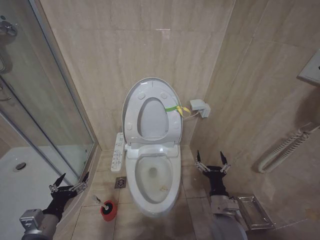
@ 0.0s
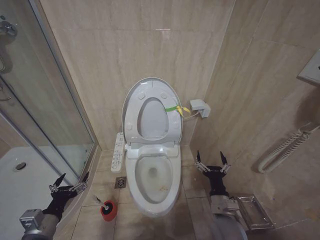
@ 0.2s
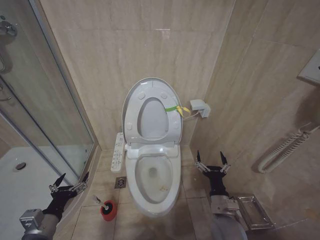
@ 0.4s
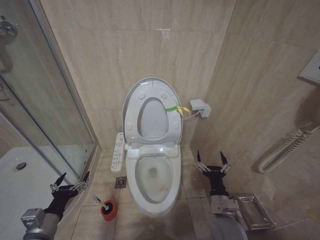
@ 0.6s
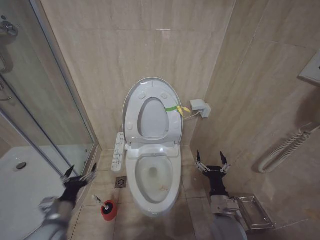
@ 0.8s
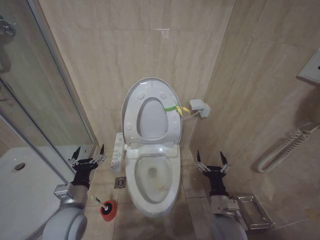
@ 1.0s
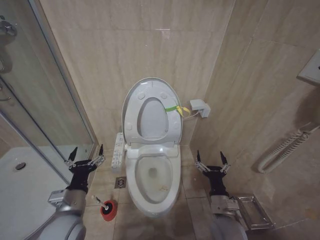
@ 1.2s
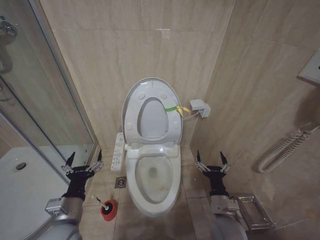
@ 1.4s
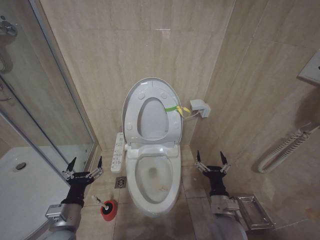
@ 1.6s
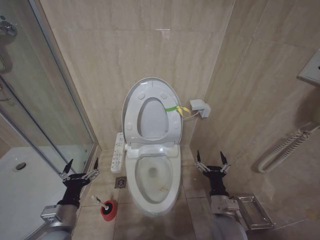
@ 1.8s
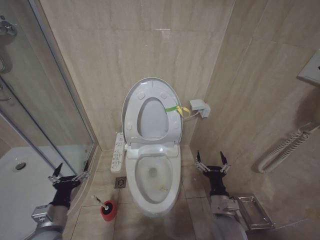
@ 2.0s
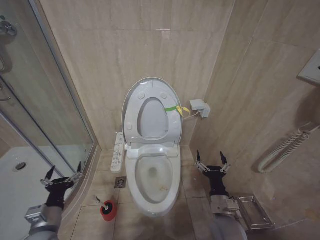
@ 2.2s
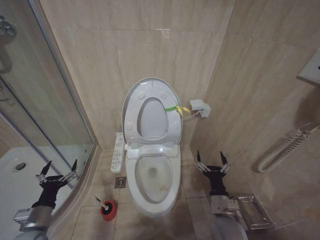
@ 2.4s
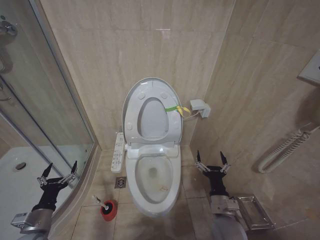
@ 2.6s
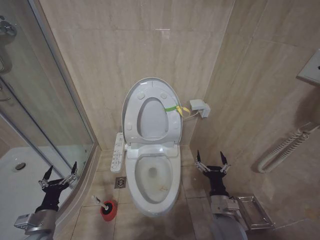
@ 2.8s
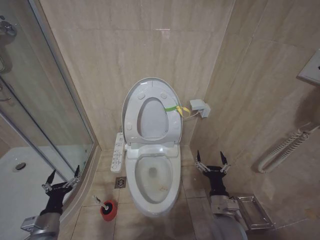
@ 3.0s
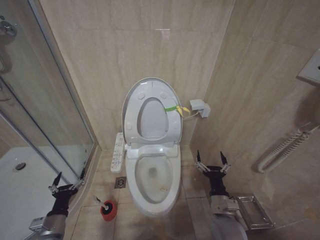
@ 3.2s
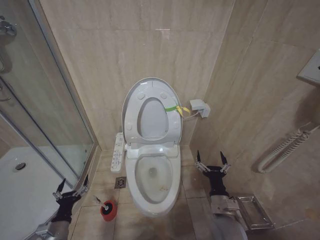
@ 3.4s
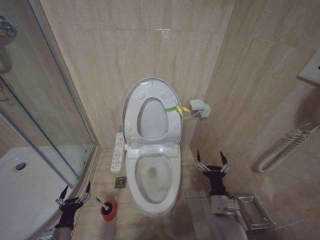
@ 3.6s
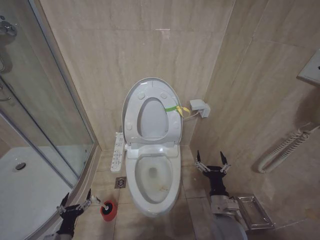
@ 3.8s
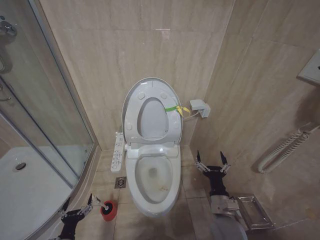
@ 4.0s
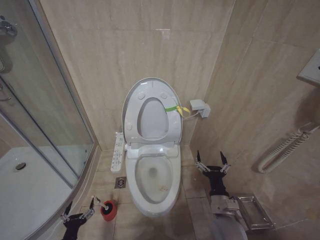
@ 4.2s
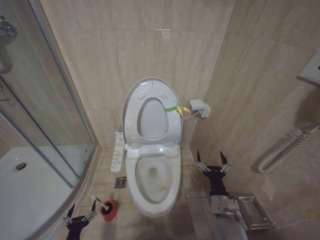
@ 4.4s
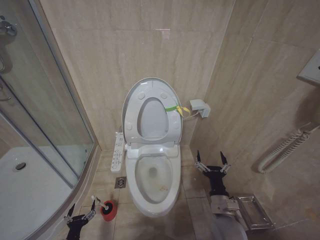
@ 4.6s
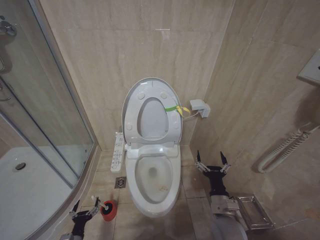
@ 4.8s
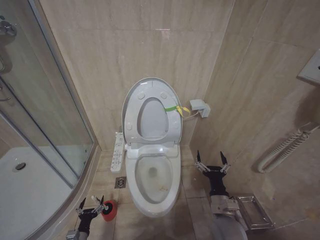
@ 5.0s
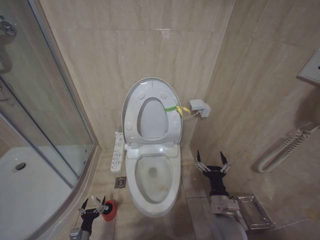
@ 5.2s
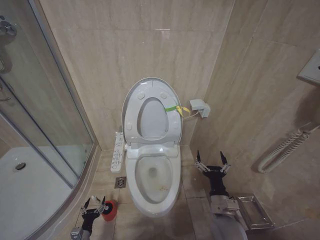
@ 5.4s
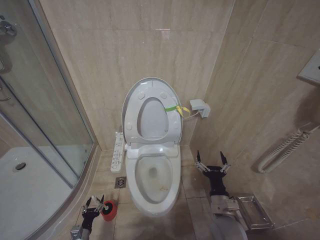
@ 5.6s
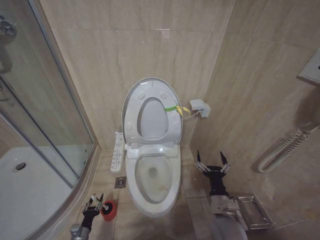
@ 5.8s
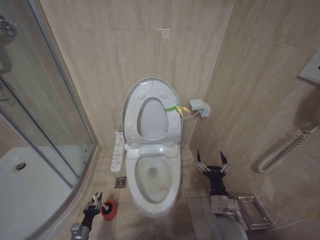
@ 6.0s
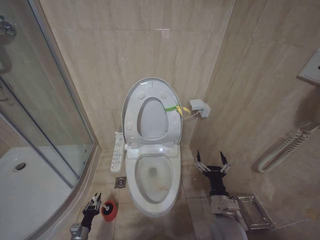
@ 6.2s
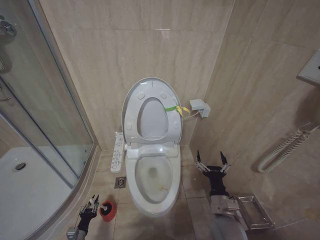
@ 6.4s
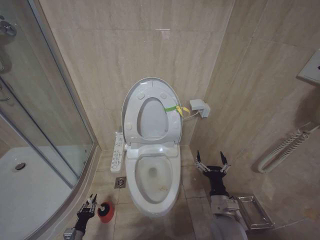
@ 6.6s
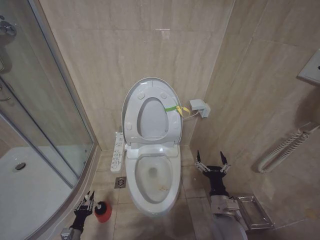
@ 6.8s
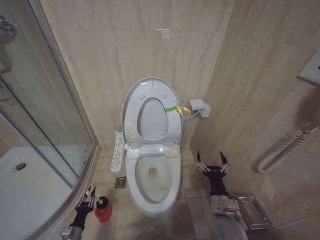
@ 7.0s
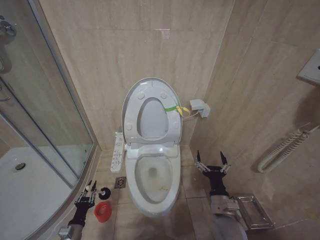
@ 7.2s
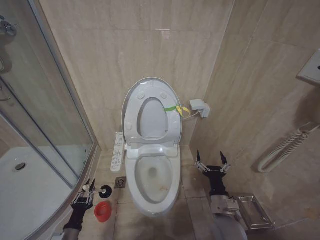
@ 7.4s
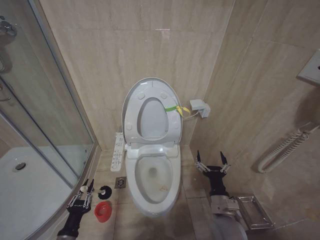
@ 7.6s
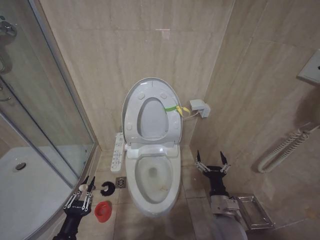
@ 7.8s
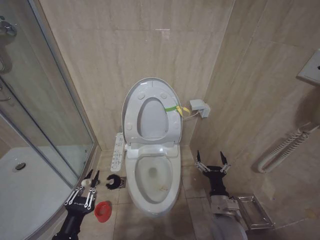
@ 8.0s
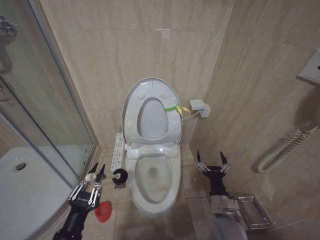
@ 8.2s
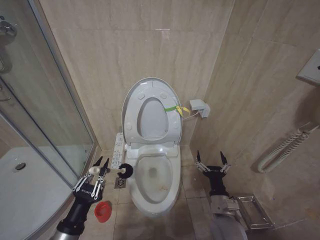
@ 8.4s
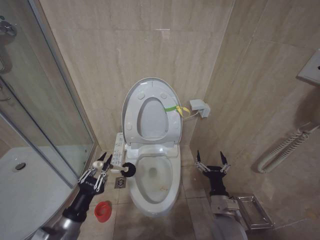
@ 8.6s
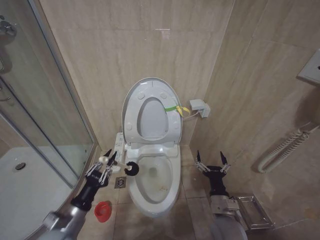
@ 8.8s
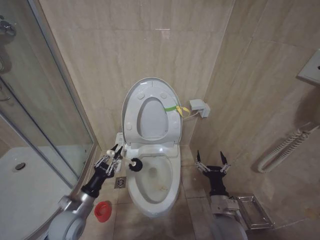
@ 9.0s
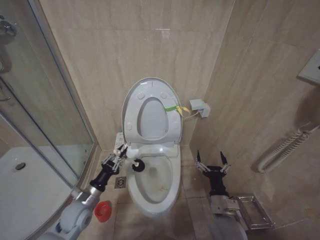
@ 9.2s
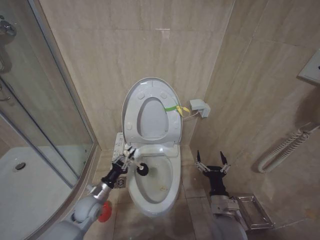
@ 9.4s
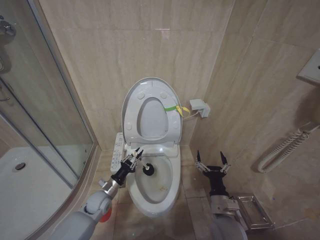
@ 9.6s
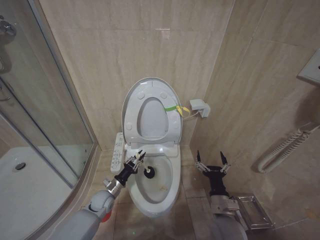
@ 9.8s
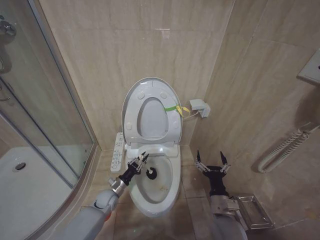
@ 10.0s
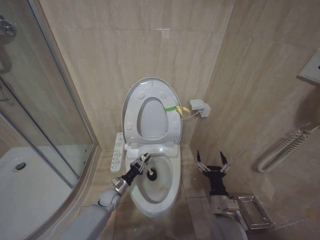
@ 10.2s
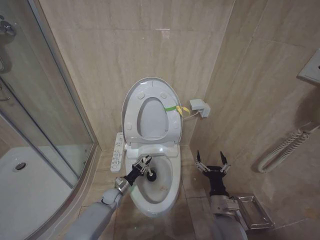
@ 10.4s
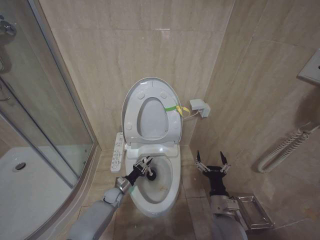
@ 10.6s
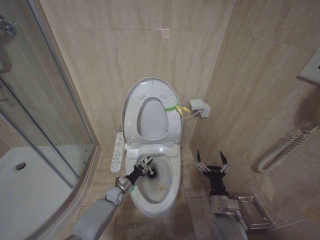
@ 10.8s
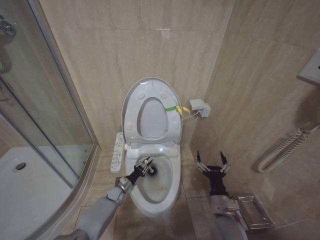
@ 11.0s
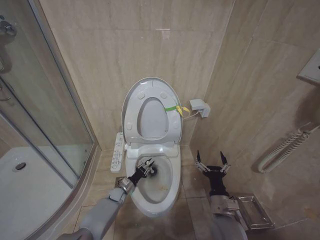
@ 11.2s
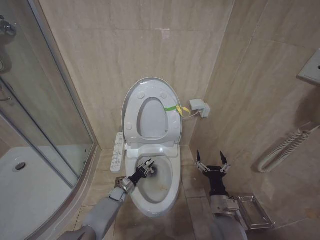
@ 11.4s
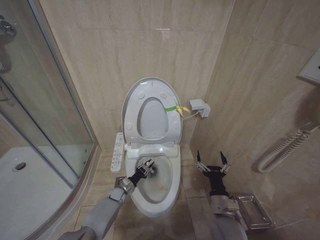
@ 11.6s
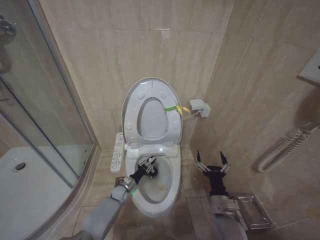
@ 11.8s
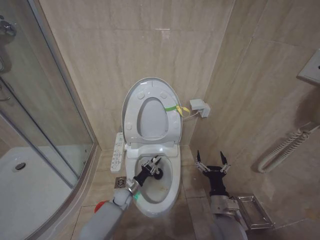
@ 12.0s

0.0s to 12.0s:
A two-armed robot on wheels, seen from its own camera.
Task of the whole recording: Open the toilet lid, clean the toilet bowl with a toilet brush, close the toilet lid, and flush.
0.0s to 1.6s: The left gripper moves to the right, roughly 10 cm.
1.6s to 3.0s: The left gripper travels to the left and downward by some 15 cm.
3.0s to 4.4s: The left gripper travels downward and backward by approximately 15 cm.
4.4s to 6.0s: The left gripper goes about 15 cm downward and forward, and closes up.
6.0s to 7.6s: The left gripper is displaced upward and backward by some 20 cm.
7.6s to 9.0s: The left gripper goes some 15 cm upward and forward.
9.0s to 10.4s: The left gripper heads downward, forward and to the right, covering about 25 cm.
10.4s to 12.0s: The left gripper changes place by some 5 cm.

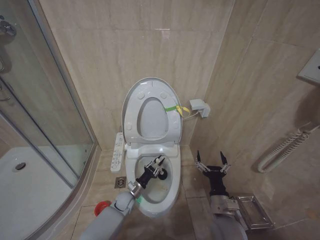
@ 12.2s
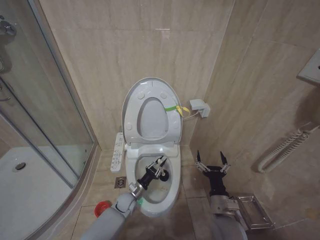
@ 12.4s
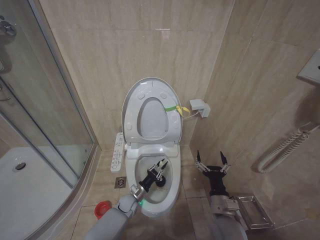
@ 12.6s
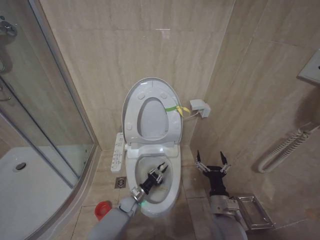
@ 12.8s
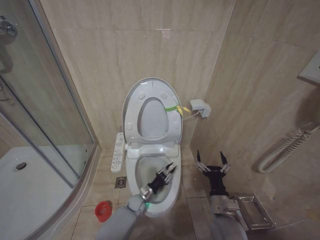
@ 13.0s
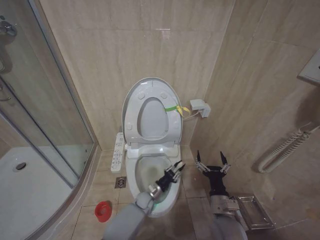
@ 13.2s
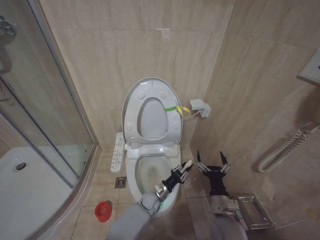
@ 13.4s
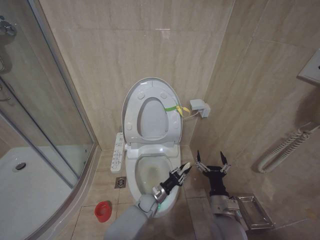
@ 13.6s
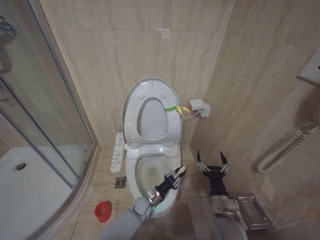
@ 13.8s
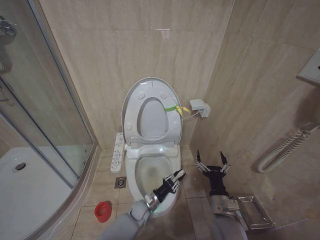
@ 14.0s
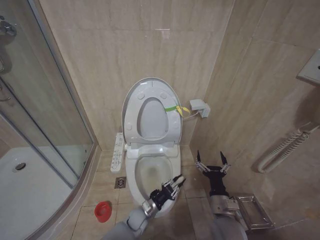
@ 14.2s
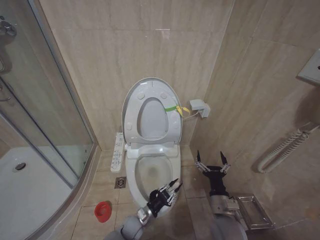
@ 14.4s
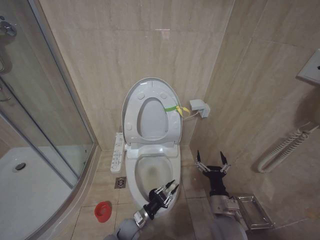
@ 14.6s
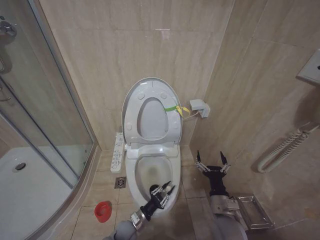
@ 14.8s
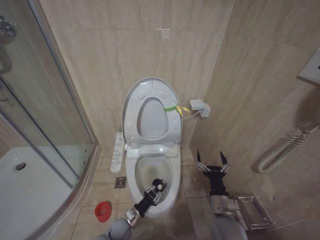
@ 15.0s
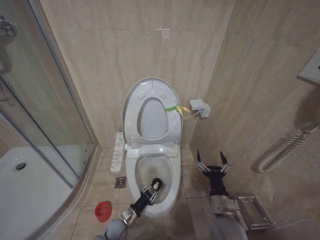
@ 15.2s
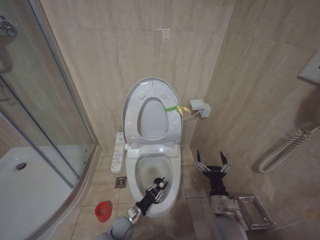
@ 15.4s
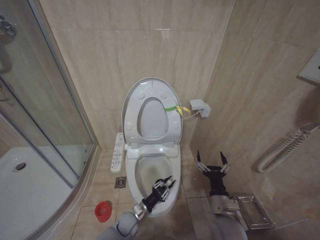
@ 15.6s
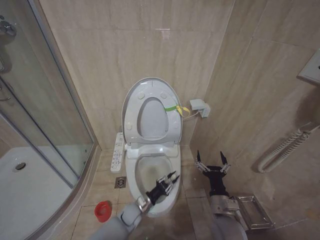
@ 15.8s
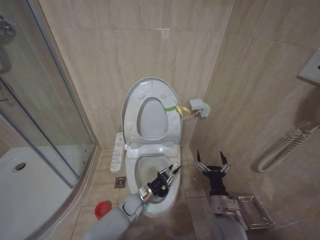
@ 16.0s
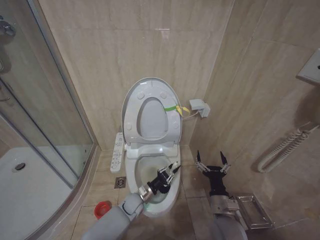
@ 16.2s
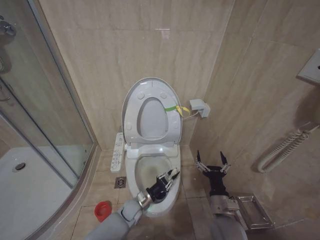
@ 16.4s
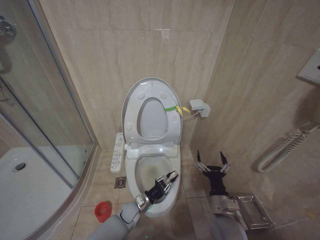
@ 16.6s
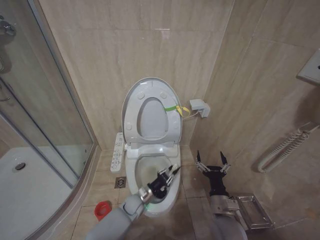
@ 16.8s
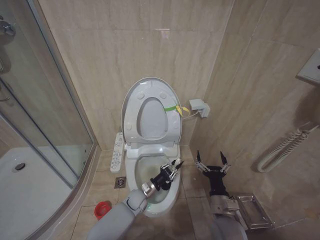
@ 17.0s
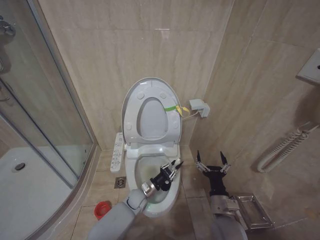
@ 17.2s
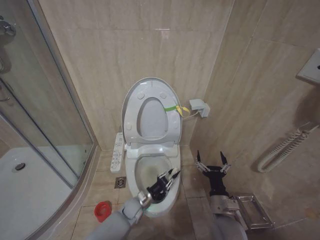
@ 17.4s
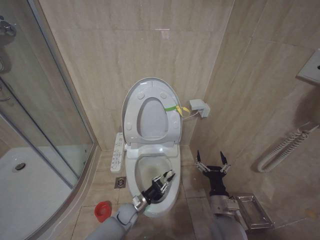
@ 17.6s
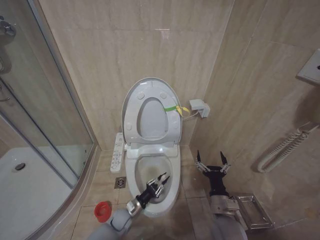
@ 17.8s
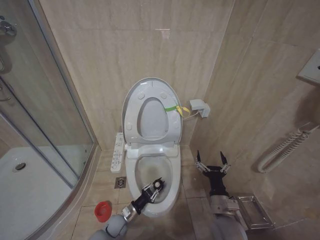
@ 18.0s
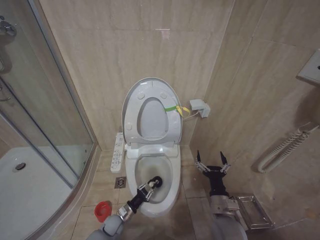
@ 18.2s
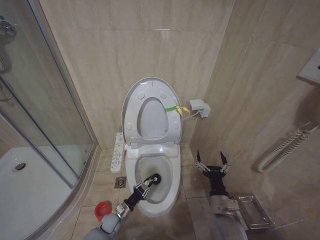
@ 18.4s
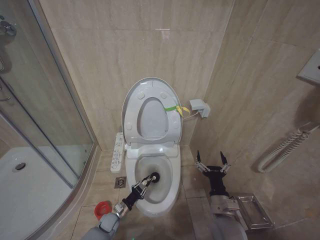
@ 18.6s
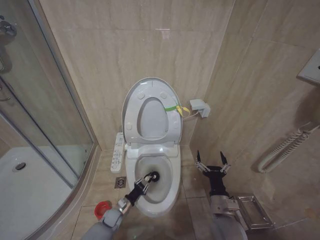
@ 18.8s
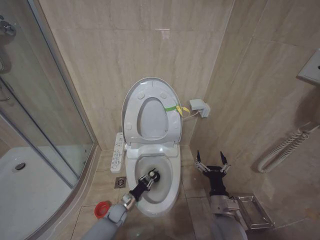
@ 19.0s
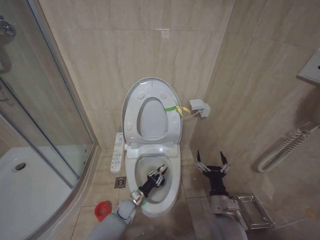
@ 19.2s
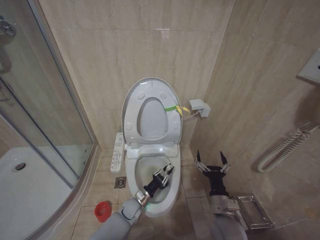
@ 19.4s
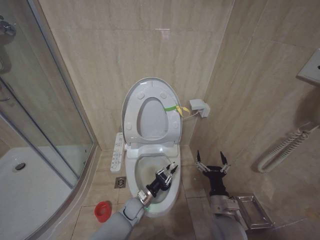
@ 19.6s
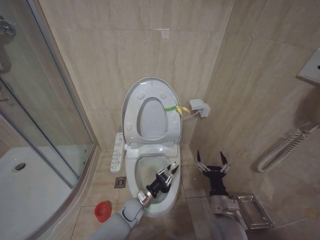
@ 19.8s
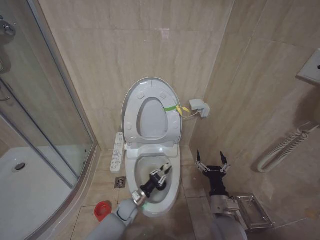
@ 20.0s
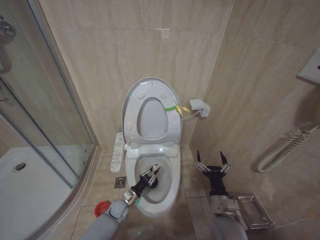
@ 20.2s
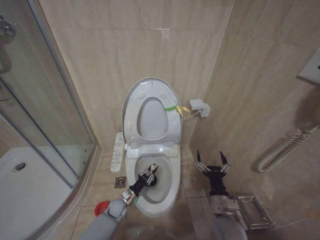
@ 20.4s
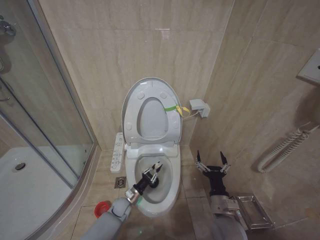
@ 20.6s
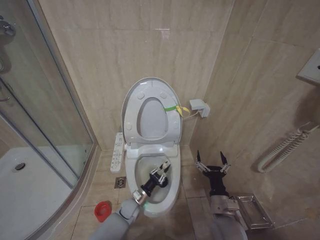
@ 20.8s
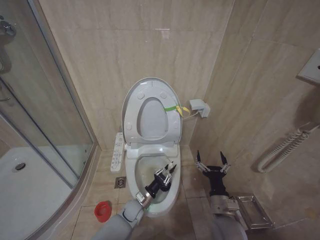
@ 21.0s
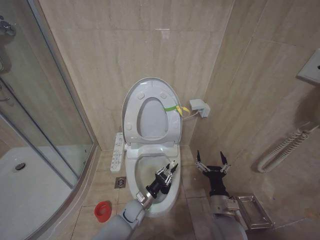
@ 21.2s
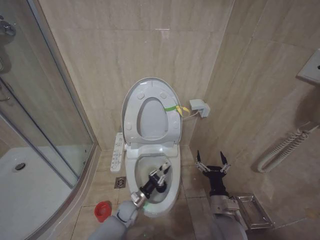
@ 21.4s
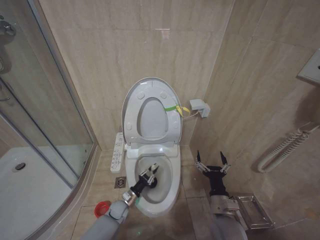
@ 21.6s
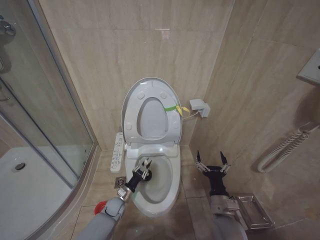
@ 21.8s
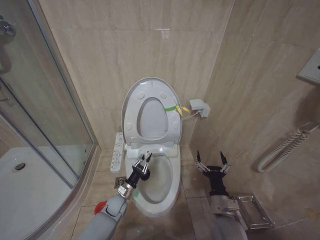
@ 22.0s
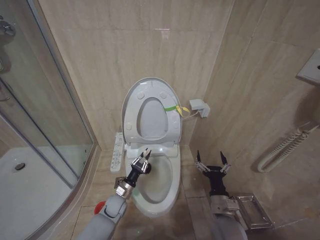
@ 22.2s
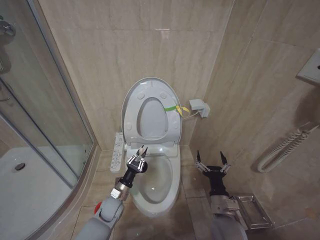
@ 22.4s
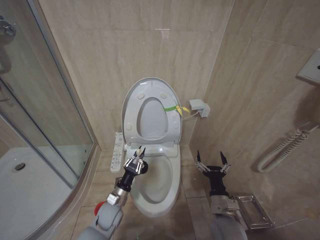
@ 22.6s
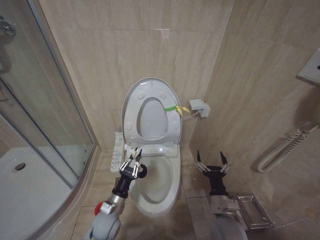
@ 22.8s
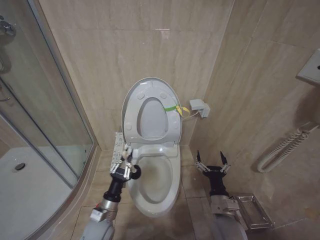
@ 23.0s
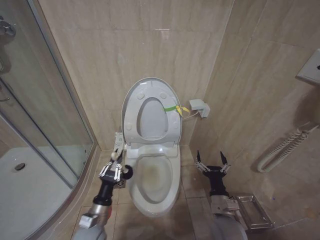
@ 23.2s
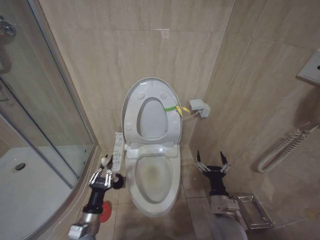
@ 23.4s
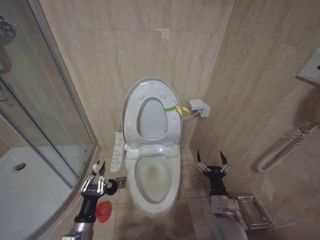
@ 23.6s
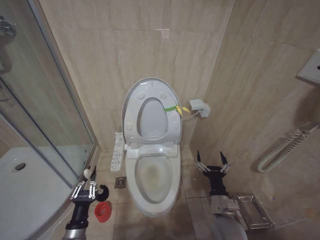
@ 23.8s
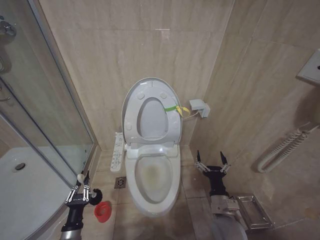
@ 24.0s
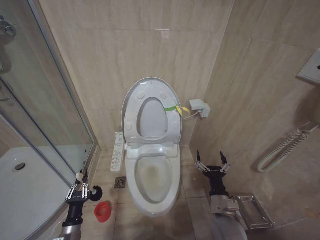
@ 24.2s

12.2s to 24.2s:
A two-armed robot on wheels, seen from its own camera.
Task of the whole recording: Open the toilet lid, clean the toilet bowl with a toilet brush, close the toilet lid, and flush.
12.2s to 13.8s: The left gripper moves to the right, about 10 cm.
13.8s to 15.2s: The left gripper travels to the left and backward by roughly 15 cm.
15.2s to 16.6s: The left gripper is displaced to the right and forward by some 10 cm.
16.6s to 18.2s: The left gripper shifts about 5 cm to the left.
18.2s to 19.8s: The left gripper moves to the right and upward, approximately 10 cm.
21.2s to 22.6s: The left gripper shifts roughly 10 cm to the left and upward.
22.6s to 24.2s: The left gripper is displaced backward and to the left by some 20 cm.
